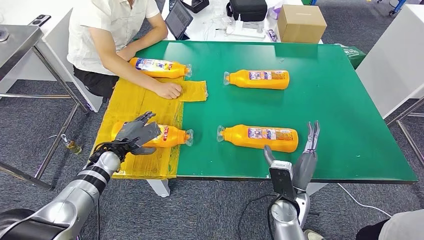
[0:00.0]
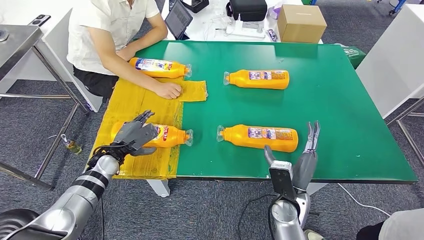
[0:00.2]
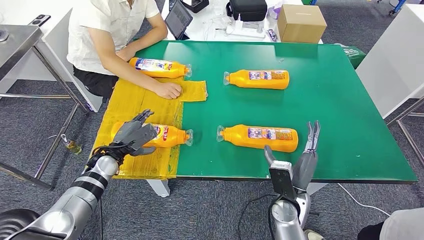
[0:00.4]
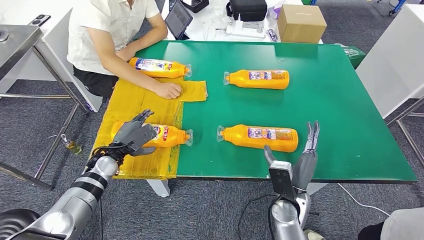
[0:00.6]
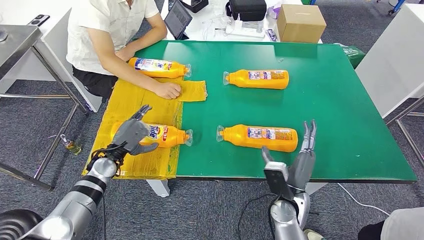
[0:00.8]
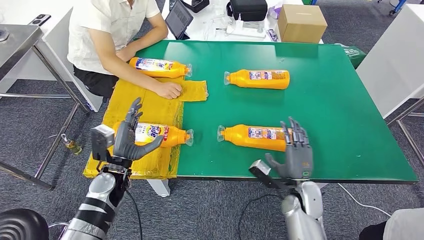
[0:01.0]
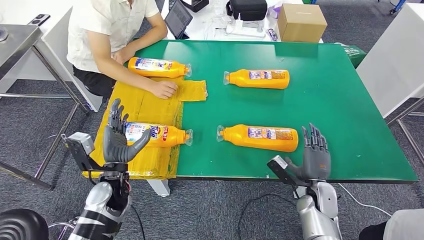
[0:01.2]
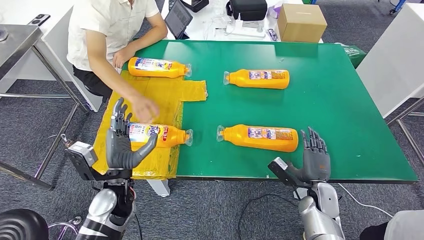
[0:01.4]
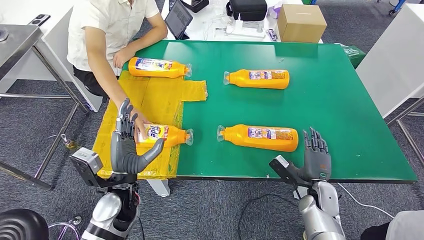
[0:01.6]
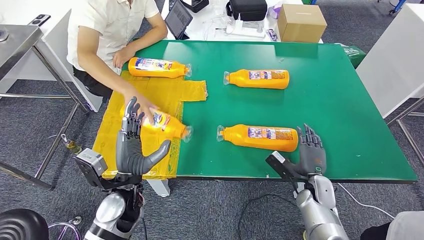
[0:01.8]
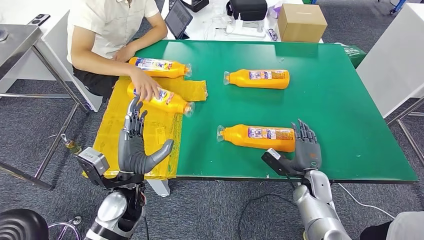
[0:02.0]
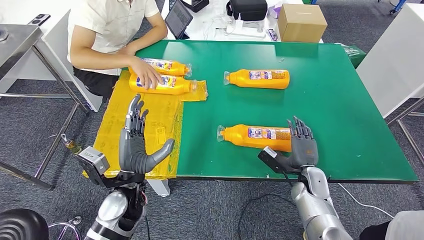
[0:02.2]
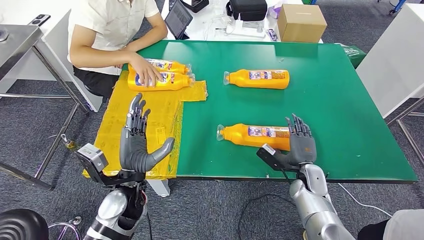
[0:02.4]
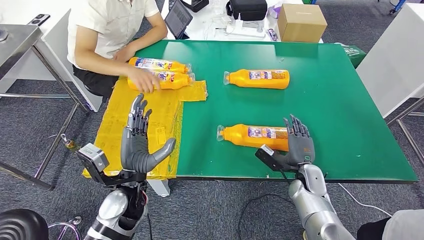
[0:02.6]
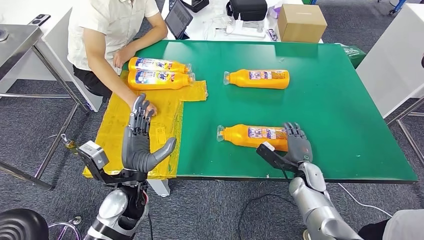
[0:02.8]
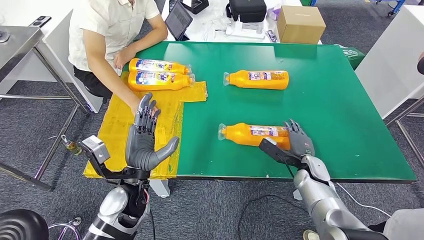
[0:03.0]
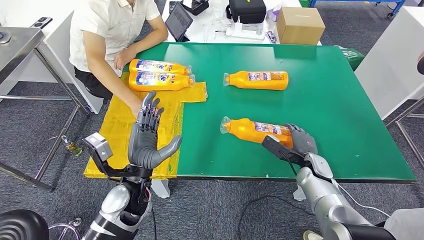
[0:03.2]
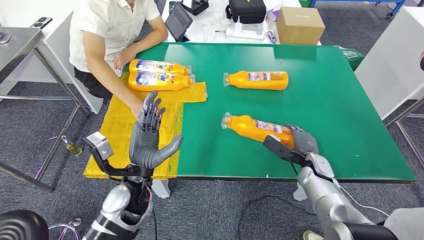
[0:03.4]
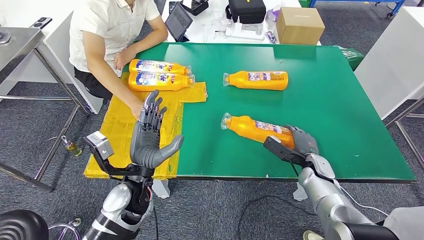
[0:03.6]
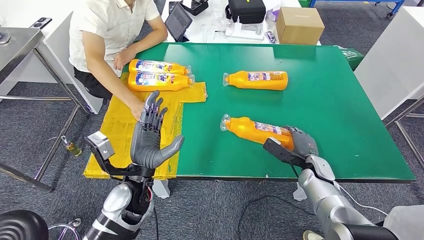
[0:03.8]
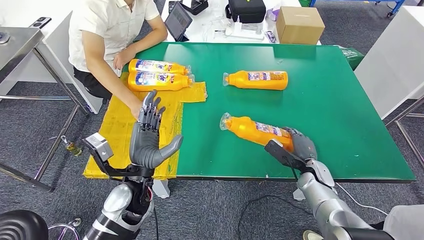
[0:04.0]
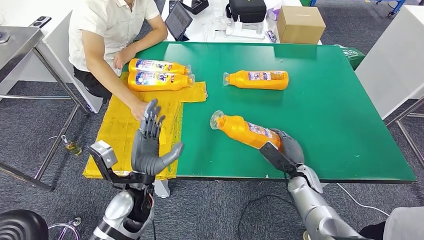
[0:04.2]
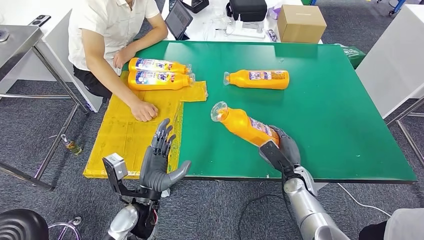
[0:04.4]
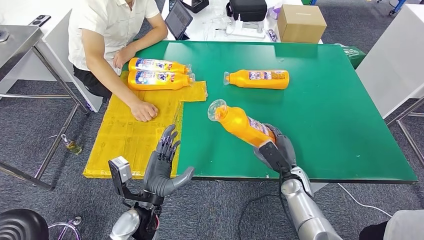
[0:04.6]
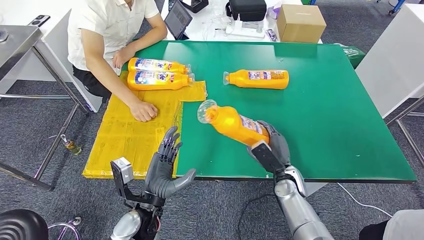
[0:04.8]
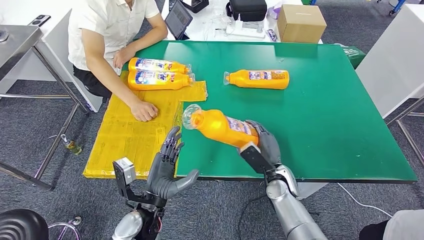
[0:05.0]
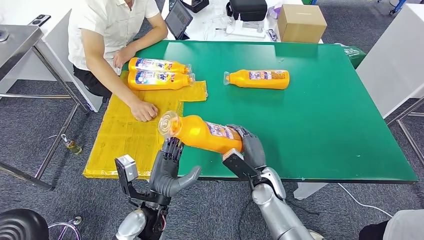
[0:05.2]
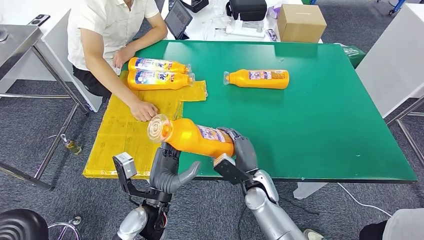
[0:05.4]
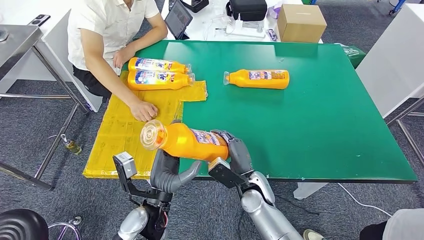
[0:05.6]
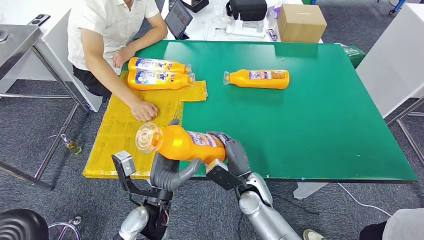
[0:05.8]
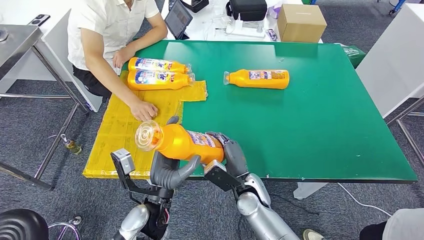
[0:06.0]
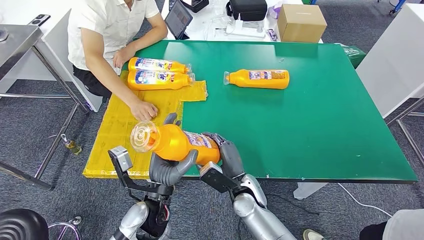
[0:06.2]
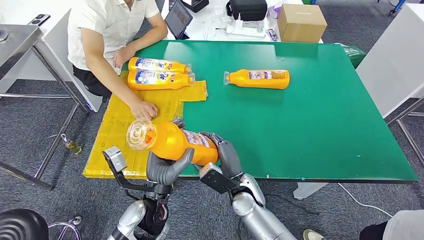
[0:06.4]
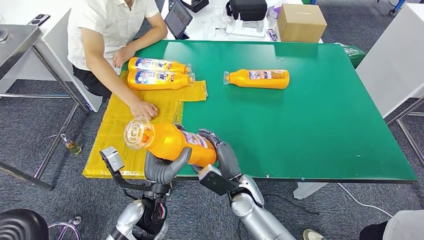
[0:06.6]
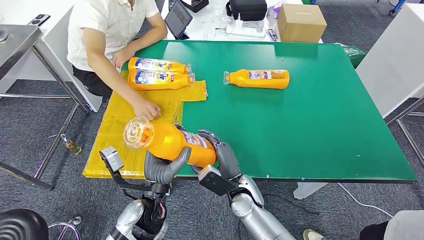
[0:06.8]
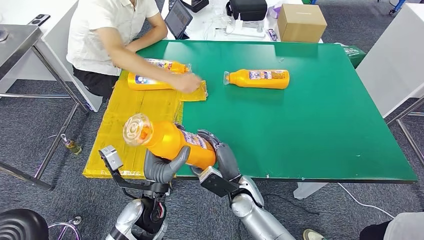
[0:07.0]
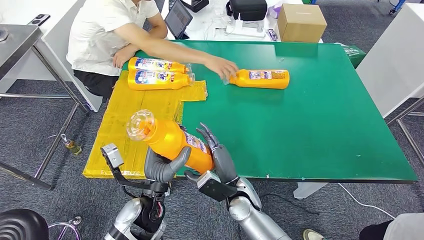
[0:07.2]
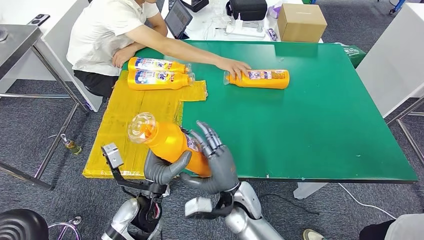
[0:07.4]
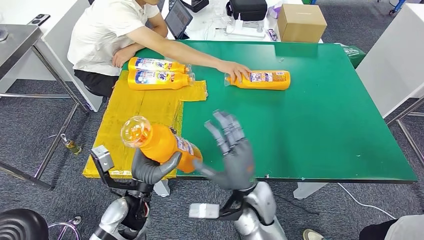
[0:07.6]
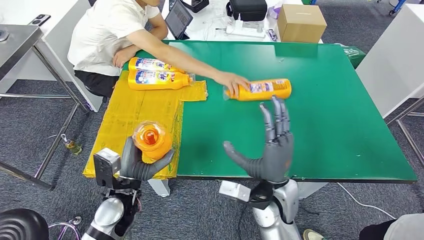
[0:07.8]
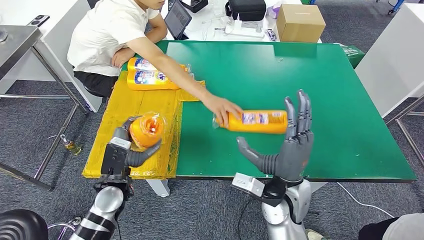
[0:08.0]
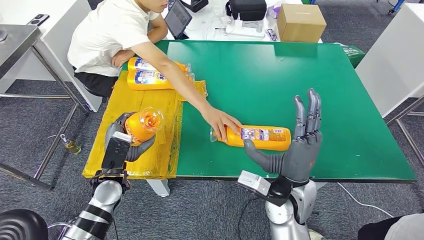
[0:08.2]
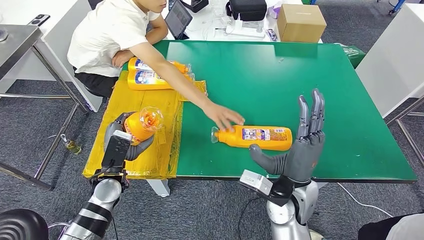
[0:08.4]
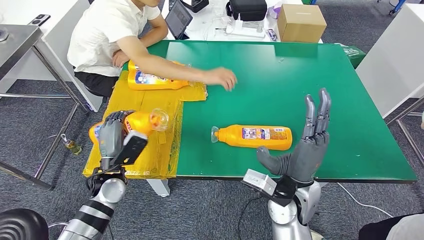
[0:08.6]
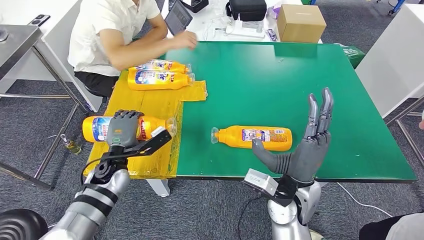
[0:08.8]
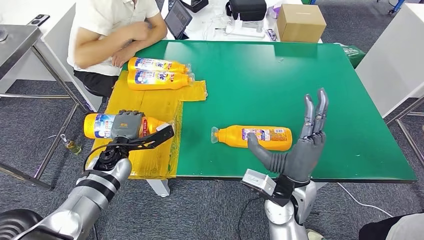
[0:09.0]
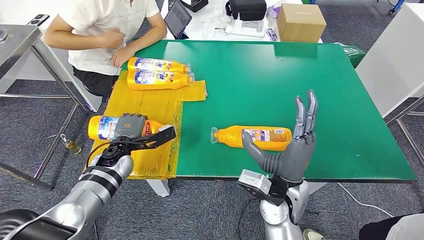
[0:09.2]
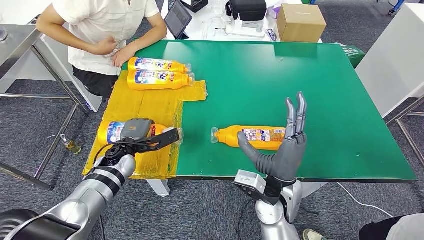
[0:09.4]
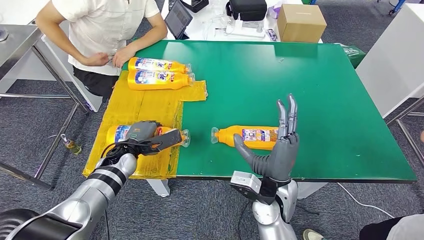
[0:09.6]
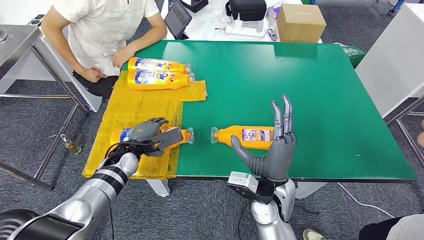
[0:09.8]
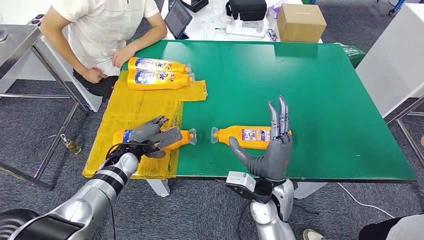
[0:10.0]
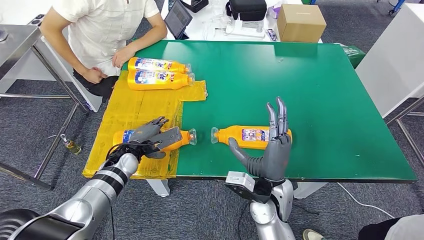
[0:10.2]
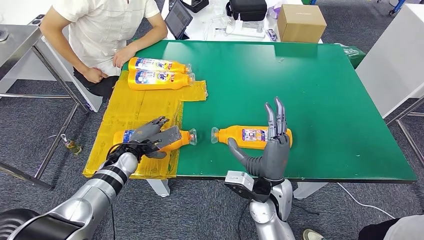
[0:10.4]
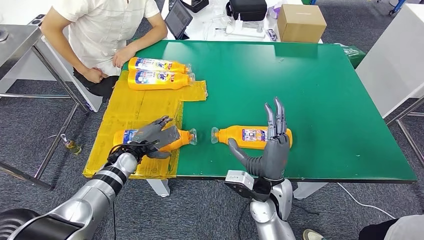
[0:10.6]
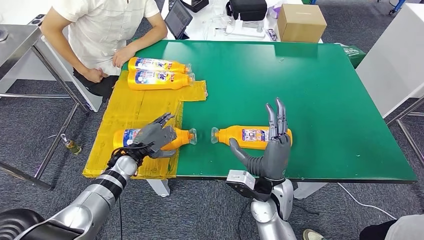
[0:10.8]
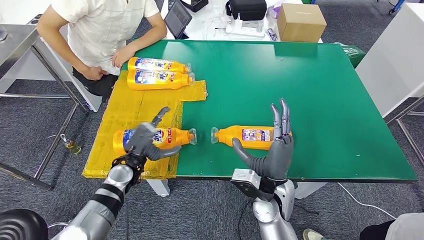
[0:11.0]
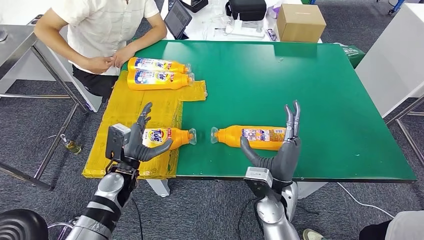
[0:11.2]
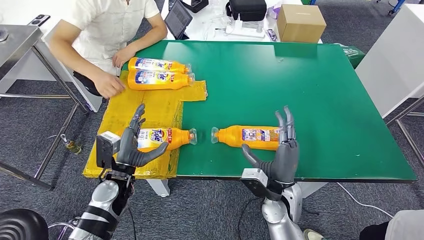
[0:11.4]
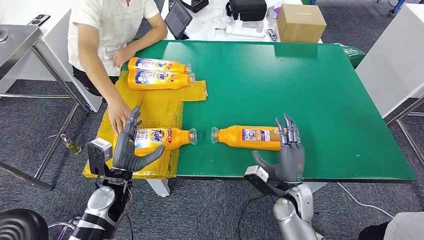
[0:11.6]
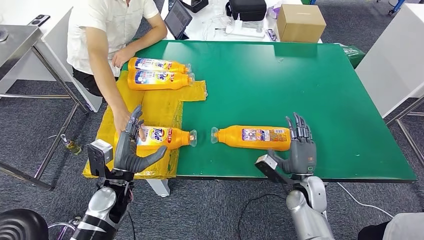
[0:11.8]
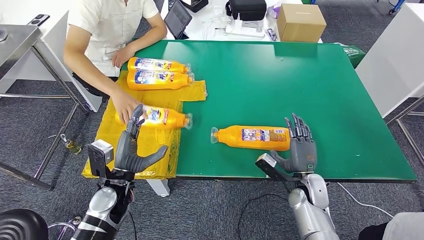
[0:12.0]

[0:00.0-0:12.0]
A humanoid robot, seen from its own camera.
Step, 0:00.0 to 0:06.2: Pick up the bottle from the table.
Step, 0:06.4 to 0:11.4: Flip the bottle to face forward.
0:00.0 to 0:01.6: The left hand moves backward and to the right, some 15 cm. Meanwhile the right hand is displaced to the right and downward by about 15 cm.
0:01.6 to 0:03.0: The right hand travels forward by approximately 5 cm.
0:03.0 to 0:04.4: The right hand shifts by roughly 5 cm, while the left hand ends up roughly 5 cm from where it was.
0:04.4 to 0:06.0: The right hand heads to the left, covering roughly 15 cm.
0:06.0 to 0:07.6: The left hand goes some 5 cm to the left. The right hand goes about 10 cm upward.
0:09.0 to 0:10.4: The right hand moves about 5 cm.

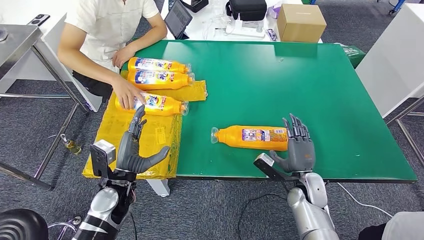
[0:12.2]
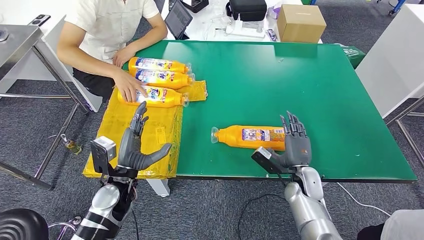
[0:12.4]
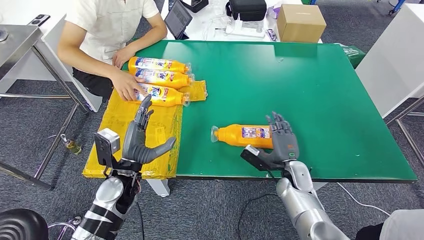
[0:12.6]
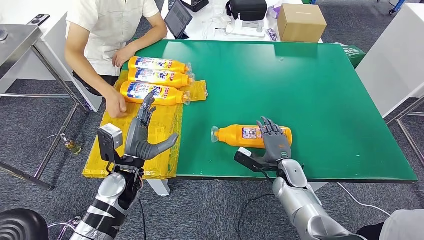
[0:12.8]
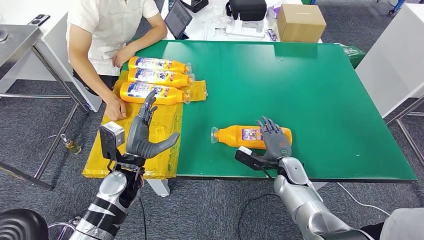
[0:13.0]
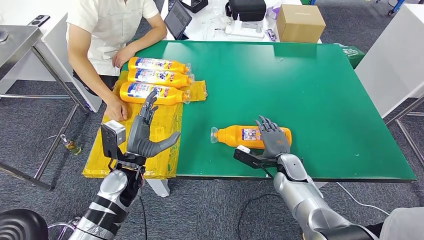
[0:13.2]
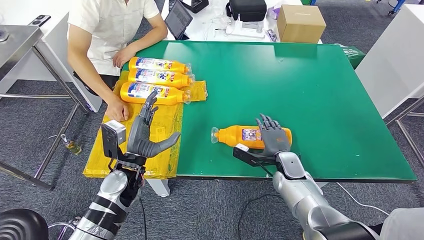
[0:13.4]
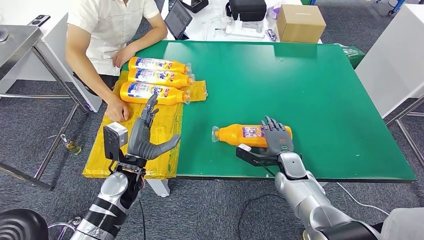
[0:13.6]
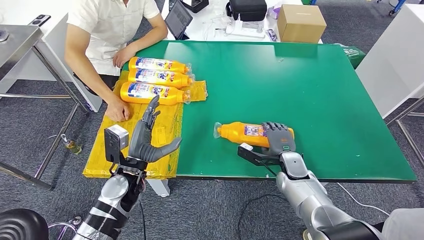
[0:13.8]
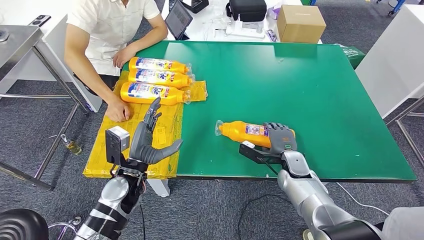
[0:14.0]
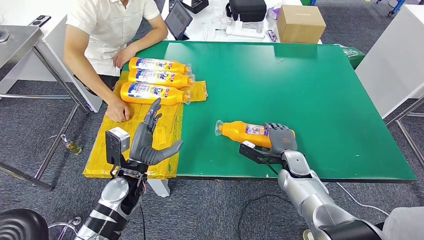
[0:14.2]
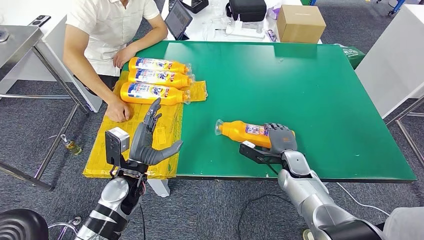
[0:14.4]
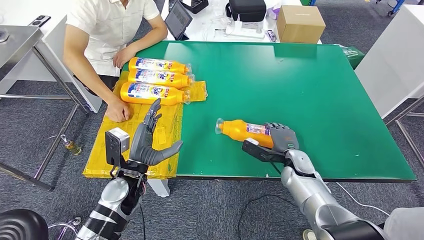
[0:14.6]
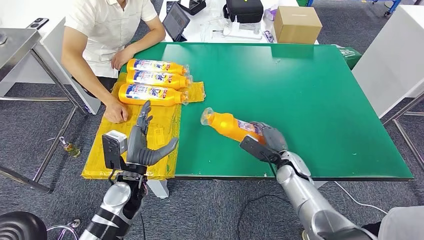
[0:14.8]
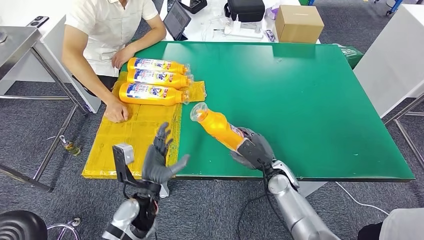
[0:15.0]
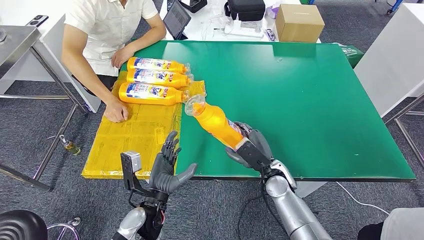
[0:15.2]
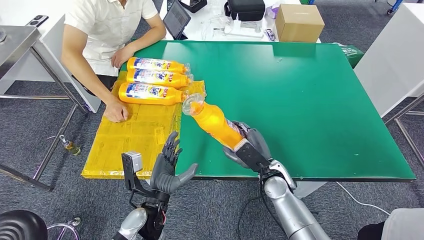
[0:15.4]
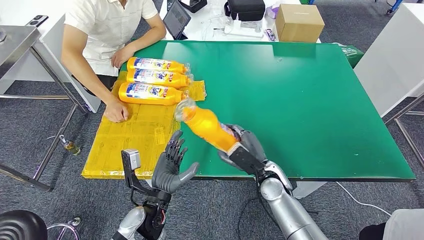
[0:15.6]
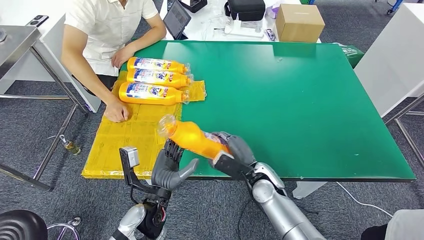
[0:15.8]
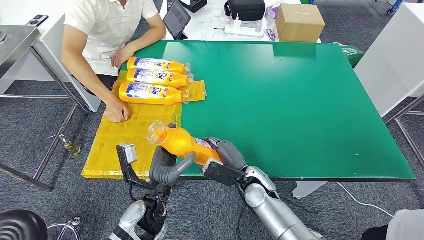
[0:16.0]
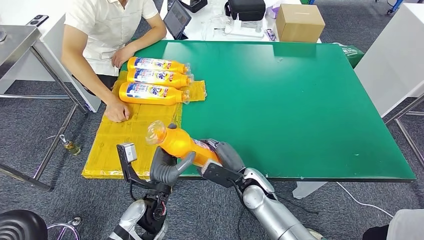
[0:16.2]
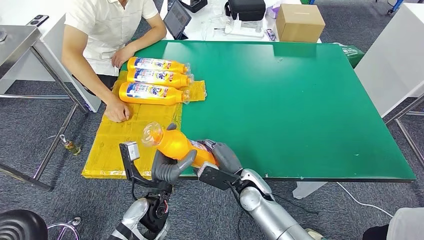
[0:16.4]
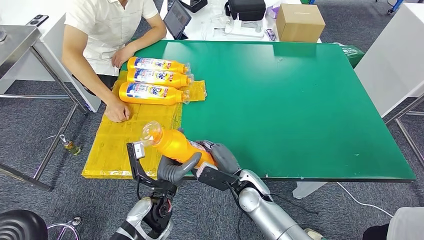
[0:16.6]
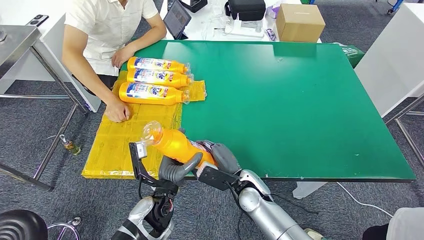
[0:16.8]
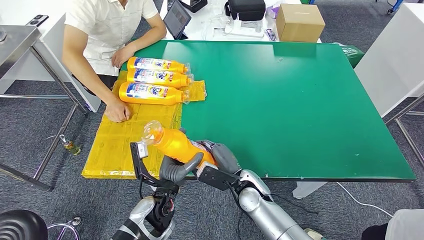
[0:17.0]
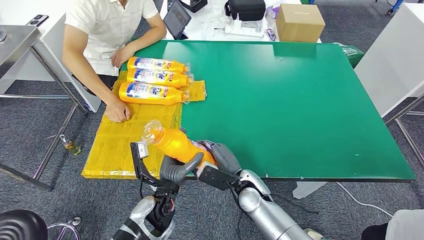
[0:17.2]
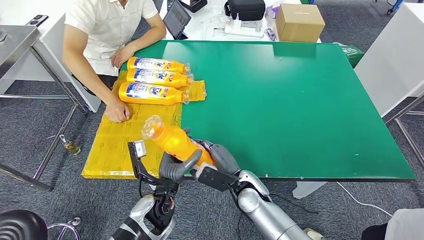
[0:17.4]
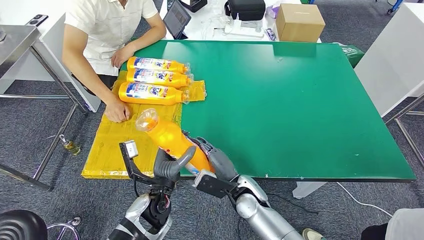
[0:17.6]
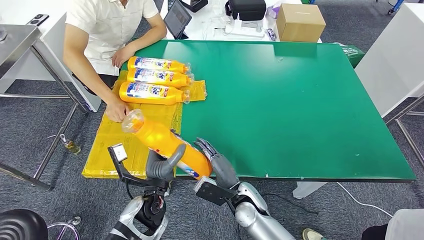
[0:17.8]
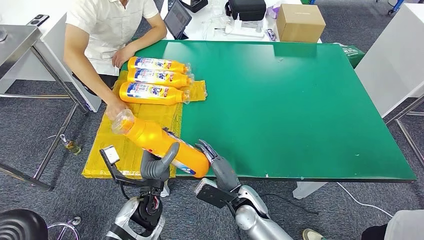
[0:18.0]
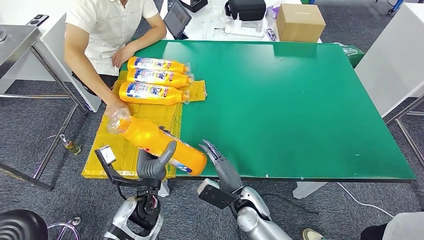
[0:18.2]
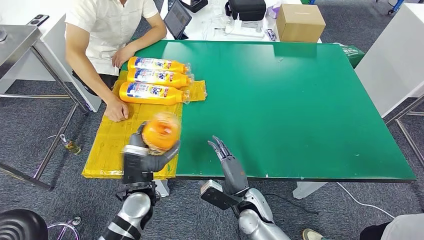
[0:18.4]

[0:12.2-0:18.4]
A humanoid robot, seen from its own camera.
Step, 0:12.2 to 0:15.0: Pick up the bottle from the table.
0:12.2 to 0:13.8: The right hand travels forward by roughly 5 cm.
0:15.4 to 0:16.8: The right hand moves to the left, about 5 cm.
0:16.8 to 0:18.4: The left hand changes place by roughly 5 cm. Meanwhile the right hand ends up approximately 5 cm from where it was.
